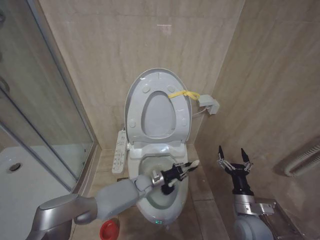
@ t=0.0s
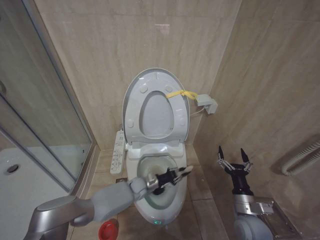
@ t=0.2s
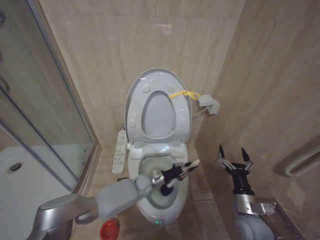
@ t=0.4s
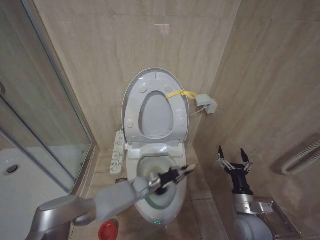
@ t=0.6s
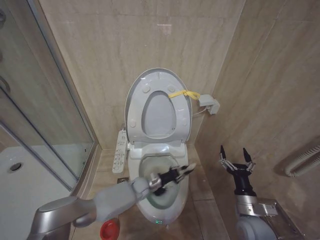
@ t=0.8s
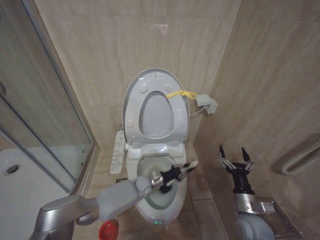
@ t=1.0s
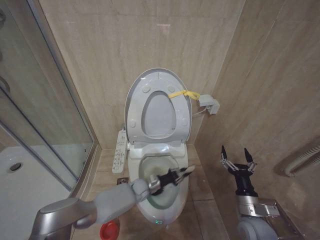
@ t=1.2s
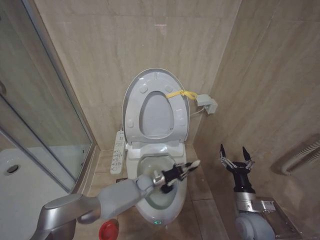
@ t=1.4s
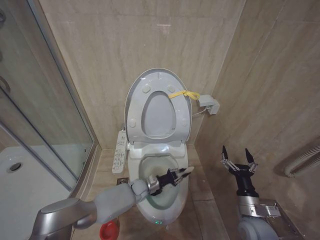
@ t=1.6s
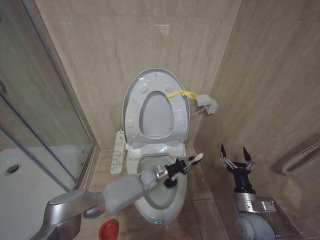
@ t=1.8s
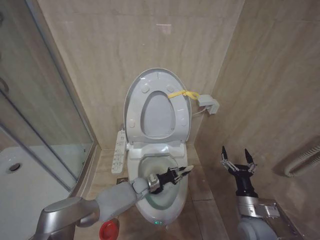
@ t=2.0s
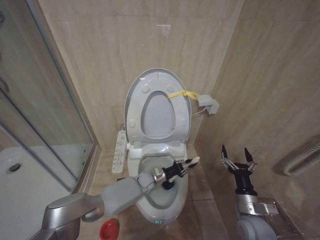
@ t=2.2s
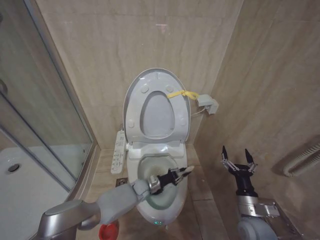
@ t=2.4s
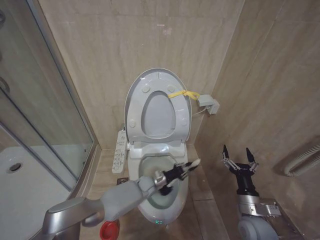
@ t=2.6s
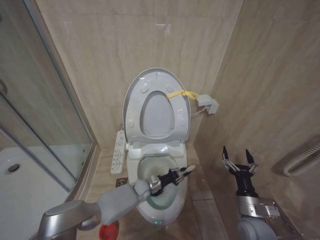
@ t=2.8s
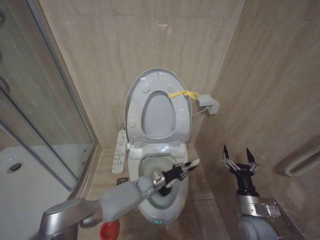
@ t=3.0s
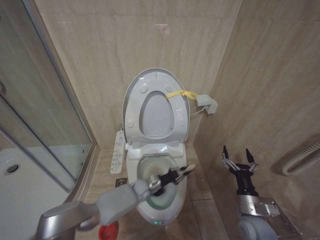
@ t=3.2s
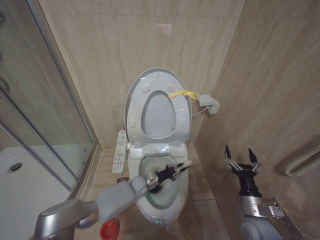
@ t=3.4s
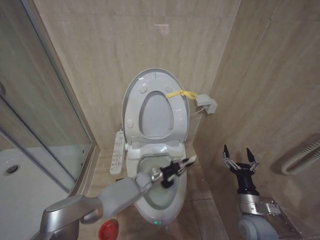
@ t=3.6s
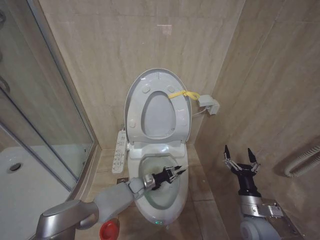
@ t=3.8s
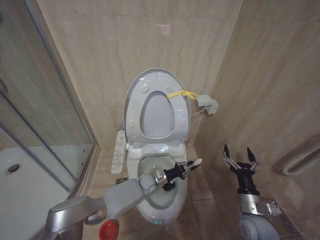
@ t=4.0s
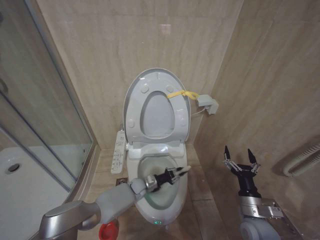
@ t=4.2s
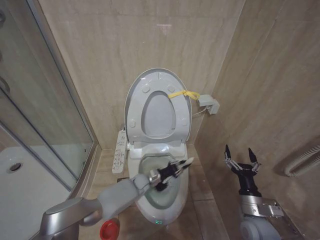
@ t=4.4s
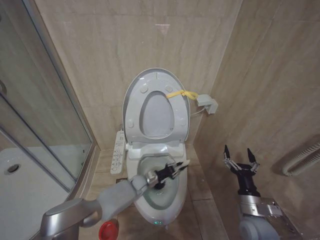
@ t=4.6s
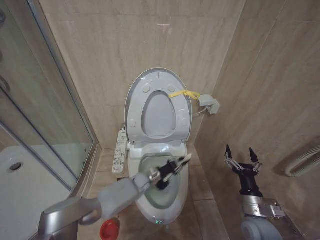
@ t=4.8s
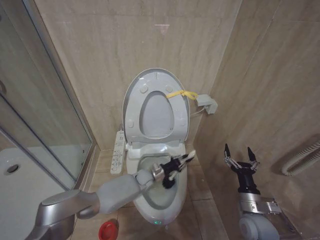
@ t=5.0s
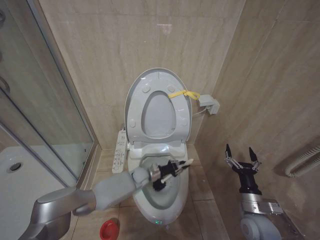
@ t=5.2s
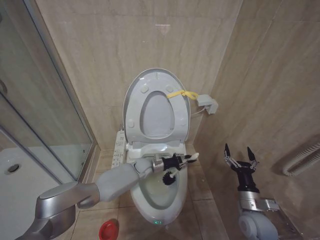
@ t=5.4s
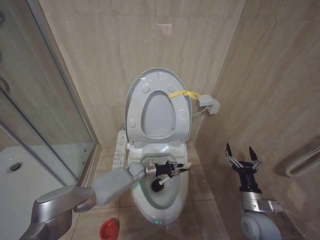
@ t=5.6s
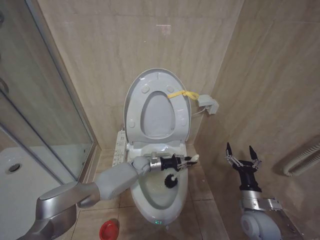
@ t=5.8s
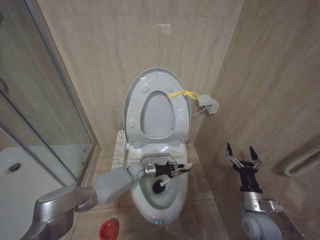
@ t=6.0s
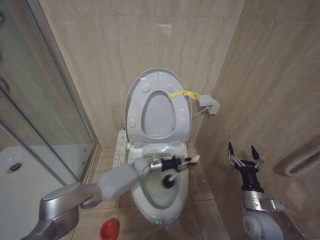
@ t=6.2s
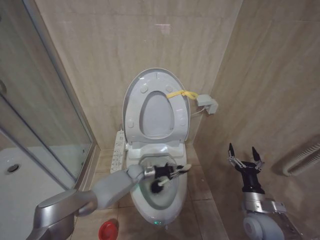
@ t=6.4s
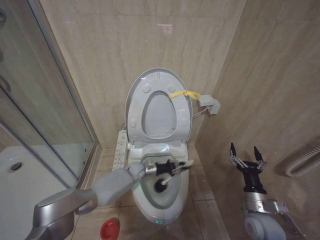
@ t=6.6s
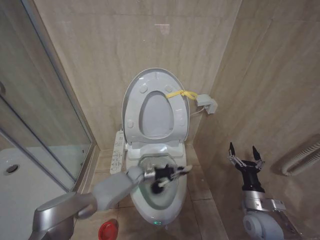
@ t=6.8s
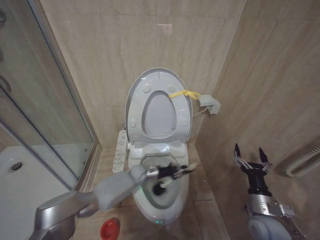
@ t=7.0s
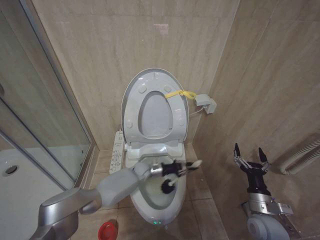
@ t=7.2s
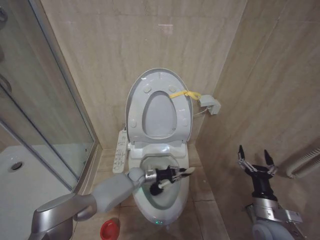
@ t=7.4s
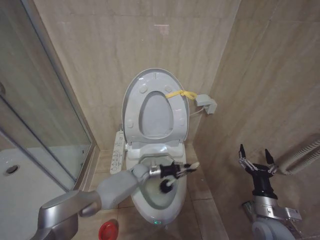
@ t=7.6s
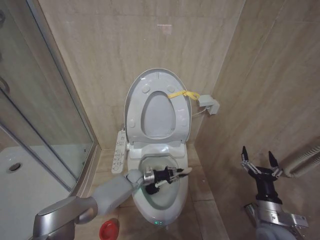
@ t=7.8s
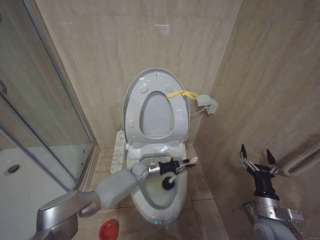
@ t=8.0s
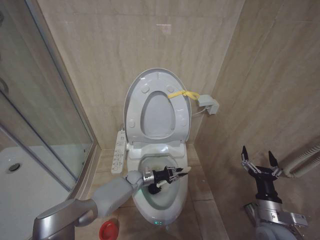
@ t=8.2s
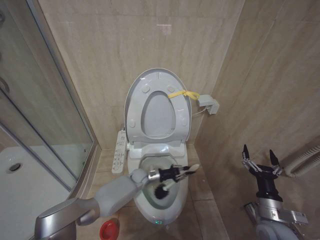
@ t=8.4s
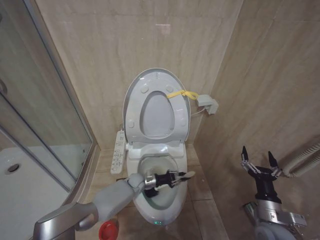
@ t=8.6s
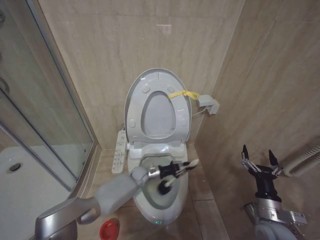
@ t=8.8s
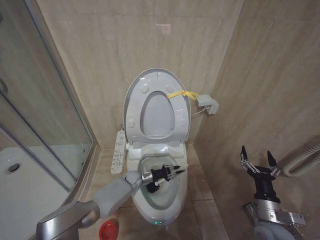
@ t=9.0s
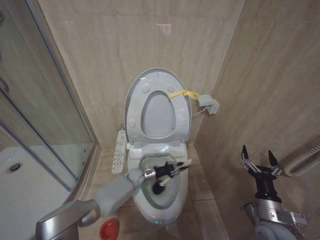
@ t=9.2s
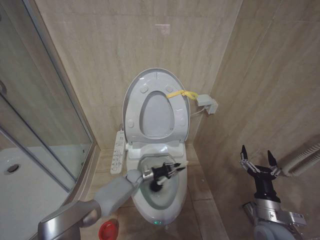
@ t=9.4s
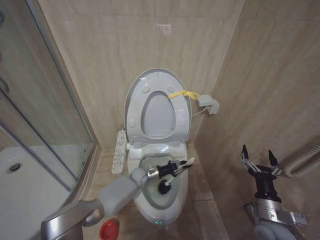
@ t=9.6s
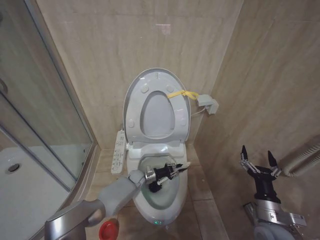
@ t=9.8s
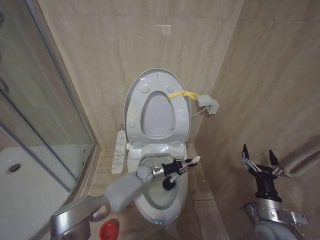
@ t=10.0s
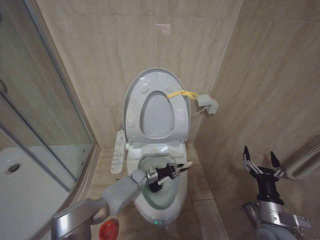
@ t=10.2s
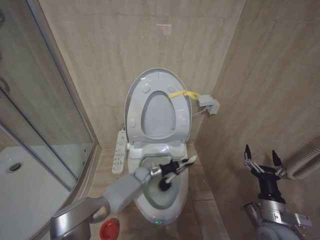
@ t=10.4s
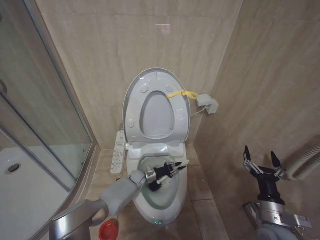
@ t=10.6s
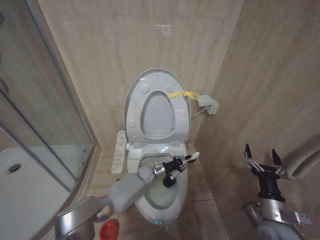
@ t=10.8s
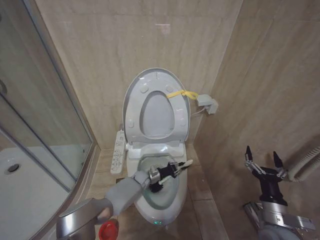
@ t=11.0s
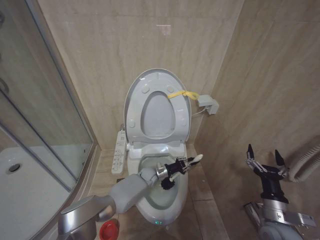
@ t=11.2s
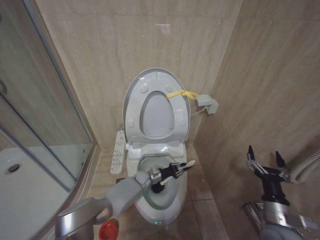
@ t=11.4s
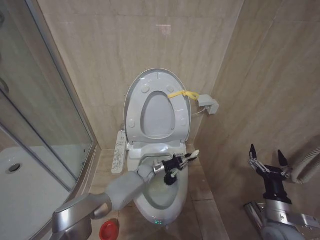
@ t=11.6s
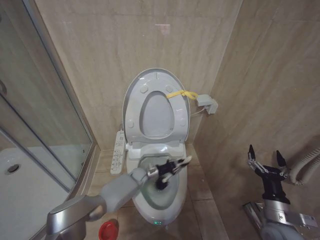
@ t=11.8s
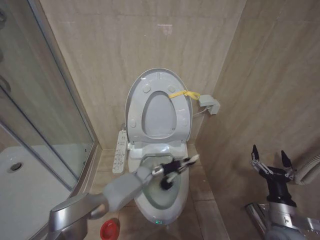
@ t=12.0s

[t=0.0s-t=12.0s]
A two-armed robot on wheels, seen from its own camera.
Task of the whole recording: Open the toilet lid, clean the toilet bowl with a toilet brush, close the toilet lid, and flush.
t=0.0s to t=1.6s: There are only small adjustments of the grippers.
t=3.0s to t=4.4s: The grippers stay close to where they were, moving slightly.
t=4.4s to t=6.0s: The left gripper goes approximately 10 cm upward and forward.
t=7.6s to t=9.0s: The left gripper goes up and down, roughly 5 cm each way, reversing 2 times.
t=9.0s to t=12.0s: The grippers move only a little.

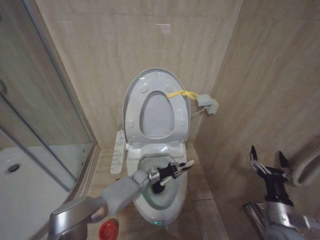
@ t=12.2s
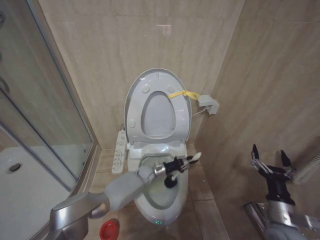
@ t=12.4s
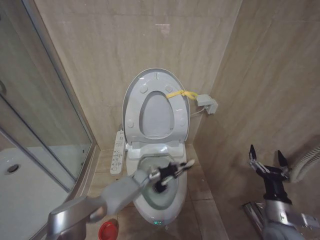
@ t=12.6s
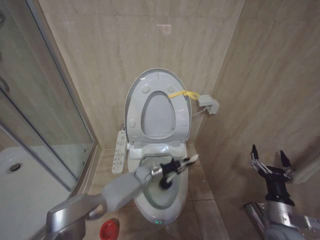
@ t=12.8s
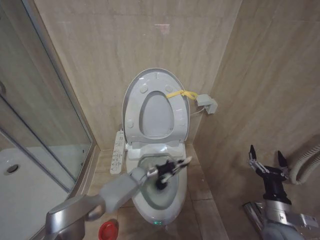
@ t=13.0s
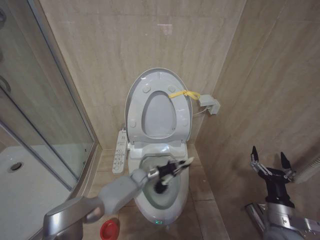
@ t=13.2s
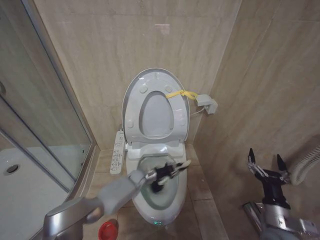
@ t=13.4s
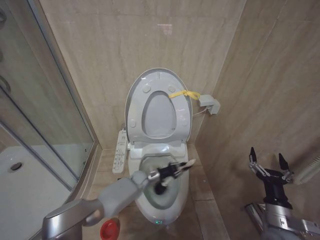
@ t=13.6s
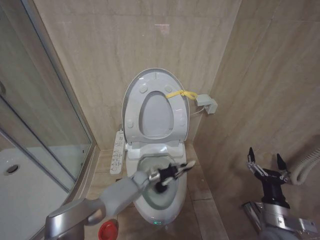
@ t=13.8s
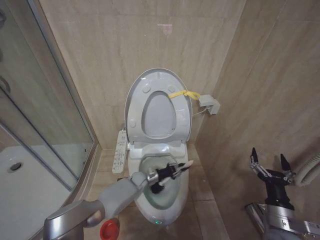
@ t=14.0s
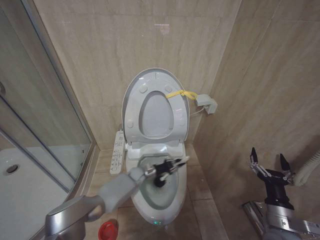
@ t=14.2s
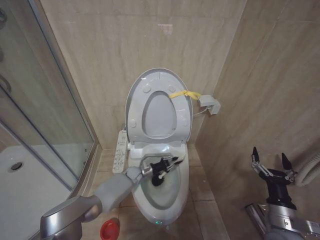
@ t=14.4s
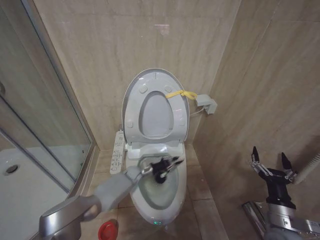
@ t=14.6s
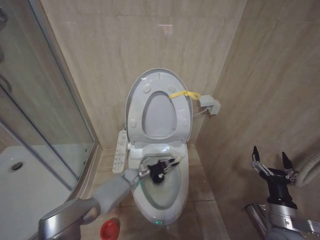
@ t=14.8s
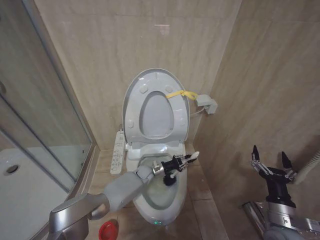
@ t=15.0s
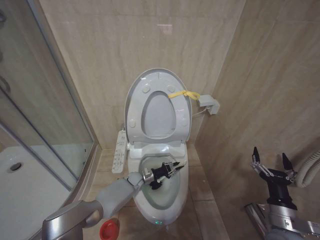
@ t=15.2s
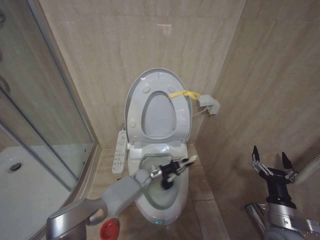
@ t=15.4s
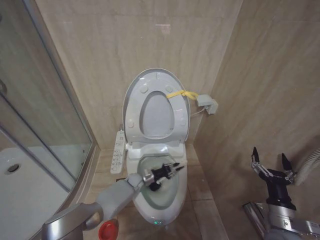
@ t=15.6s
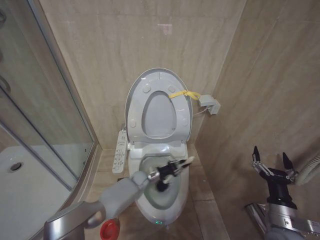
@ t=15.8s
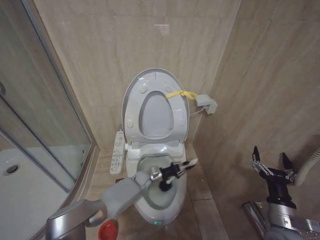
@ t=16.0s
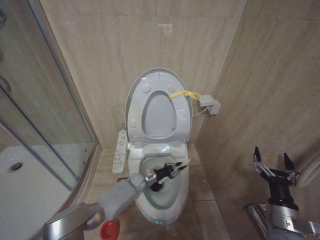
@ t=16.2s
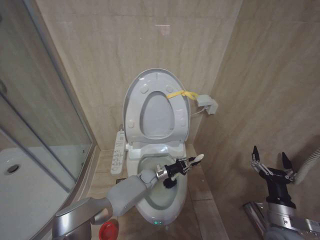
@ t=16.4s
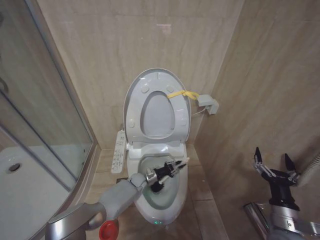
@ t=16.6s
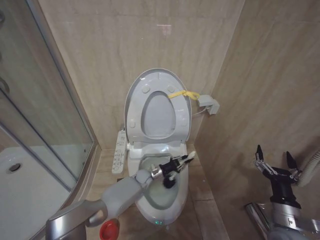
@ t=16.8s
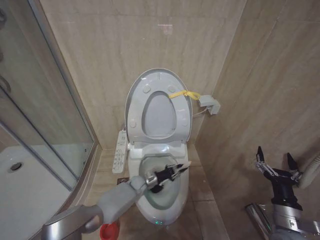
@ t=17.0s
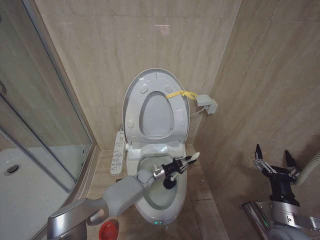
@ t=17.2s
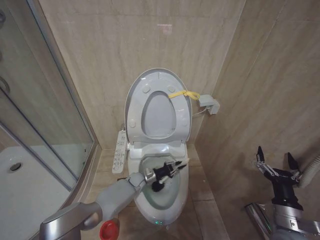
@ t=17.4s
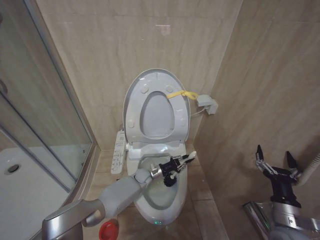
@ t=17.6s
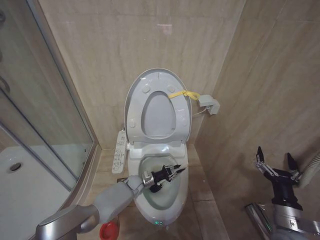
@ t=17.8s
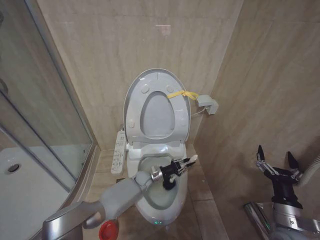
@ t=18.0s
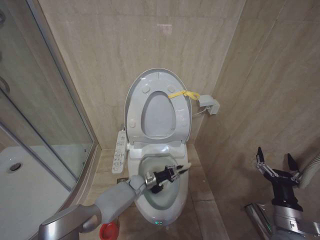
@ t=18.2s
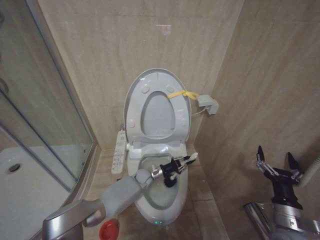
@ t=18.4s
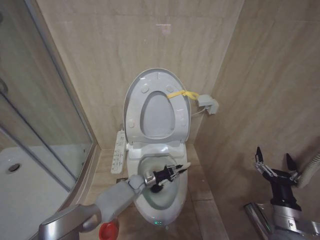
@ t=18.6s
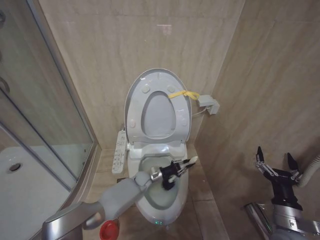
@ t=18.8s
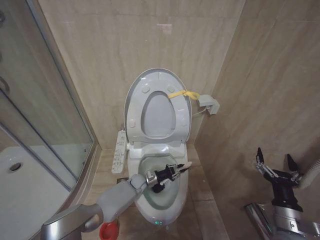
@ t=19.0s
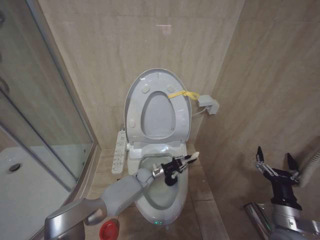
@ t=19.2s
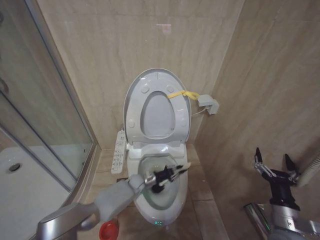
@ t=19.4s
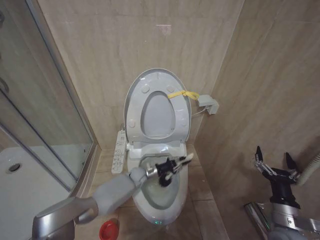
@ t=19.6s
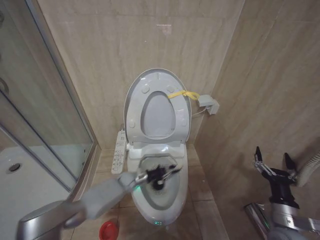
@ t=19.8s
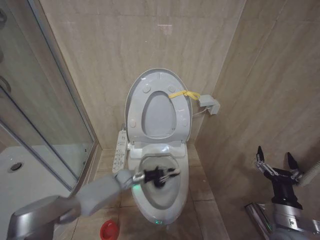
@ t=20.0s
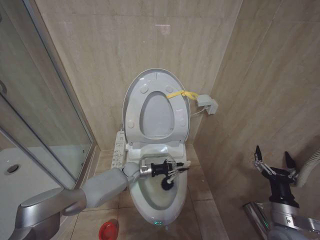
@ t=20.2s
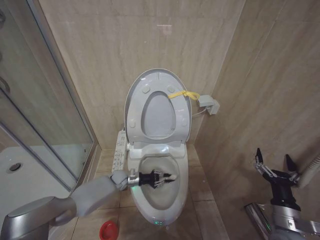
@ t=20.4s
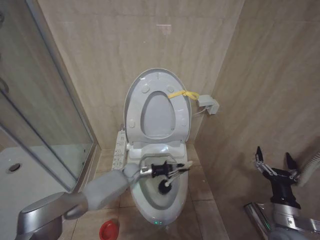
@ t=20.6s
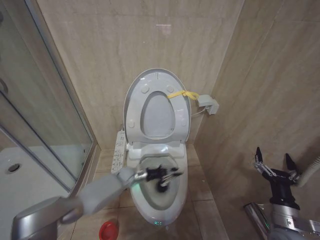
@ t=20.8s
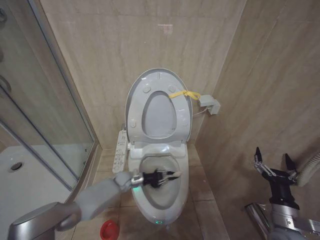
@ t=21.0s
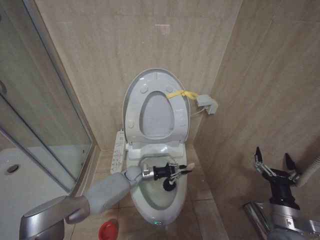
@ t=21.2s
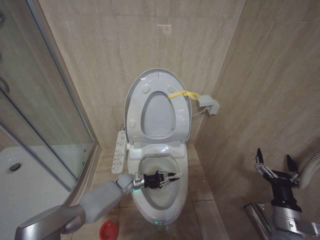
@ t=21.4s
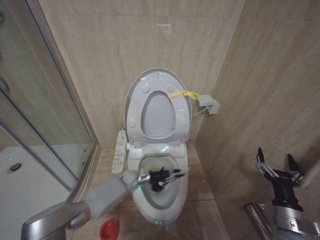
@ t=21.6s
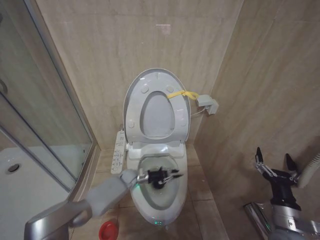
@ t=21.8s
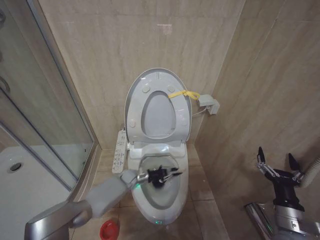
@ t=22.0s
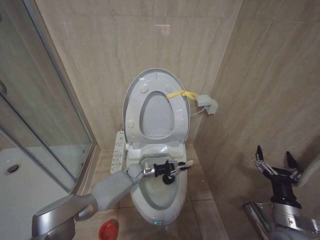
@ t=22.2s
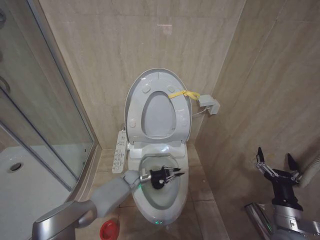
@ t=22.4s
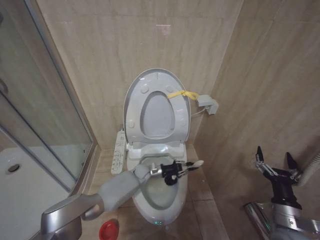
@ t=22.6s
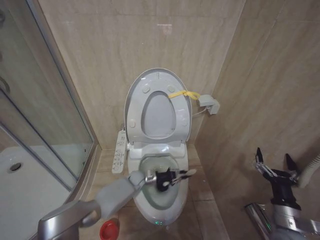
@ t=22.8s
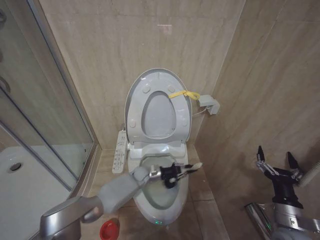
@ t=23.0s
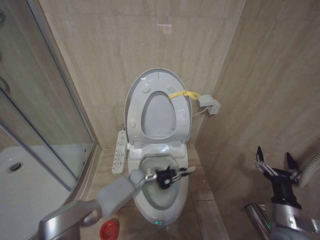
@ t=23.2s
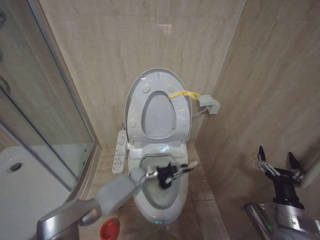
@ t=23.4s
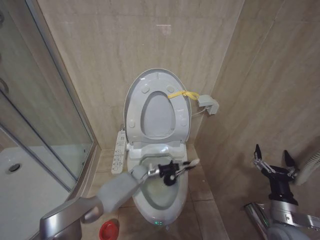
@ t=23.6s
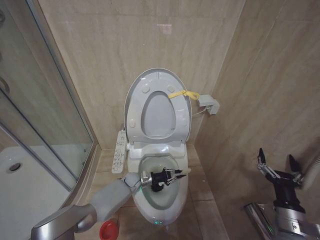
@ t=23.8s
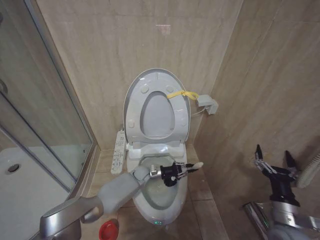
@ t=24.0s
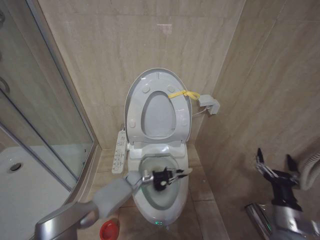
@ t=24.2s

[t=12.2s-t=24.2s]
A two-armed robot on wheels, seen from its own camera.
Task of the whole recording: Open the toilet lid, clean the toilet bowl with a toilet brush, close the toilet lid, and flush.
t=15.2s to t=16.6s: The left gripper goes left and right, about 5 cm each way, reversing 2 times.
t=16.6s to t=18.2s: The grippers stay close to where they were, moving slightly.
t=18.2s to t=19.8s: The left gripper goes some 5 cm upward.
t=19.8s to t=21.2s: The left gripper goes left and right, roughly 10 cm each way, reversing 5 times.
t=22.6s to t=24.2s: The grippers move only a little.
